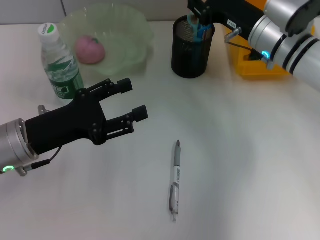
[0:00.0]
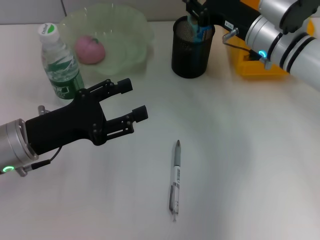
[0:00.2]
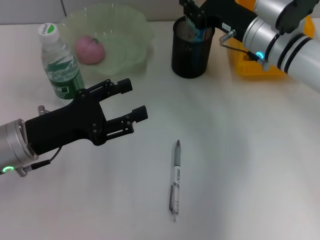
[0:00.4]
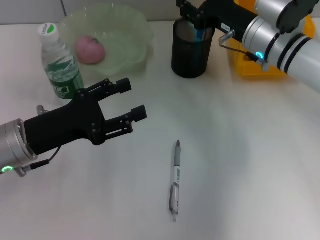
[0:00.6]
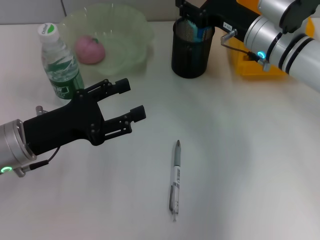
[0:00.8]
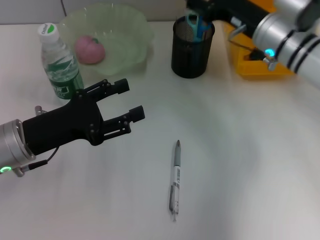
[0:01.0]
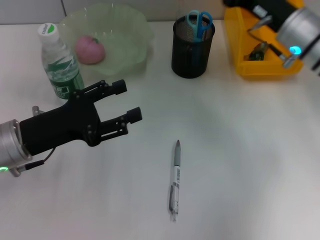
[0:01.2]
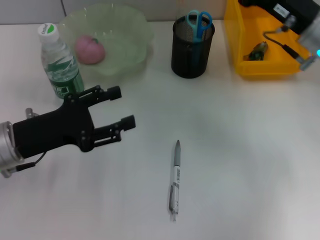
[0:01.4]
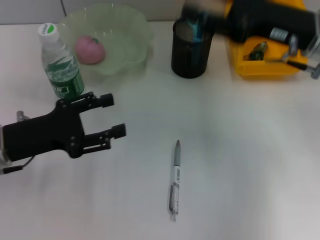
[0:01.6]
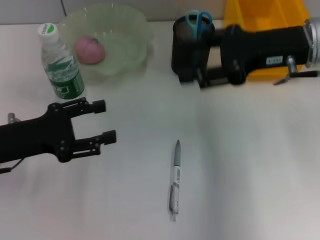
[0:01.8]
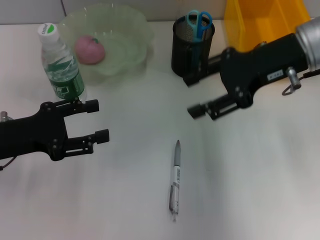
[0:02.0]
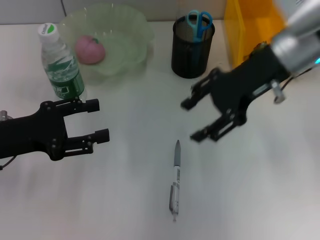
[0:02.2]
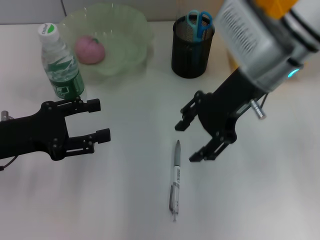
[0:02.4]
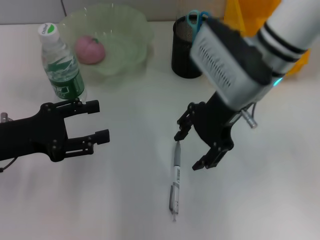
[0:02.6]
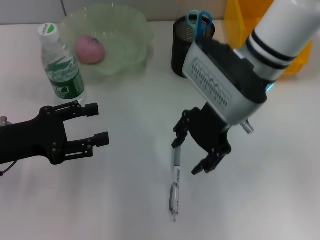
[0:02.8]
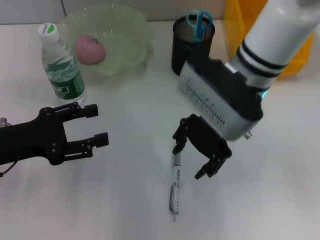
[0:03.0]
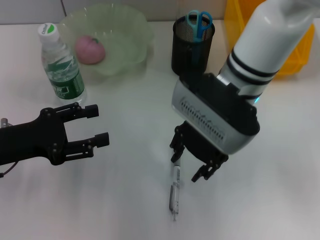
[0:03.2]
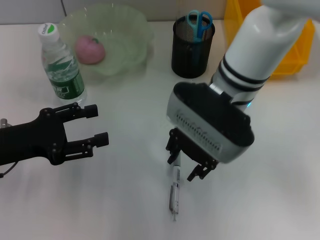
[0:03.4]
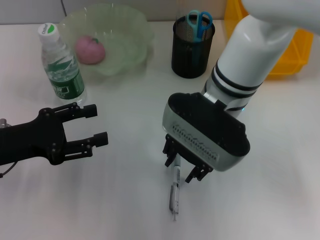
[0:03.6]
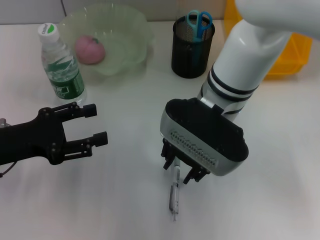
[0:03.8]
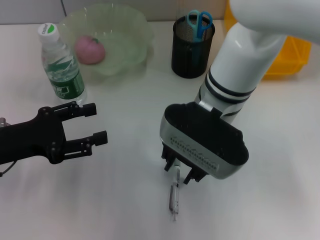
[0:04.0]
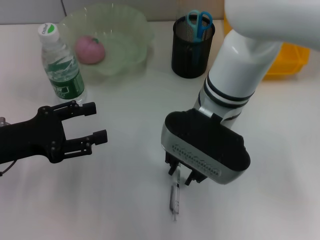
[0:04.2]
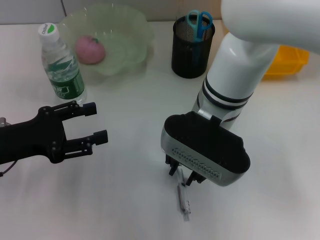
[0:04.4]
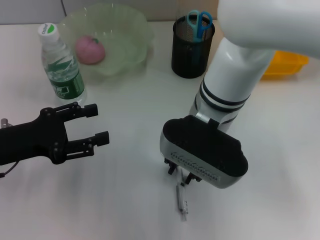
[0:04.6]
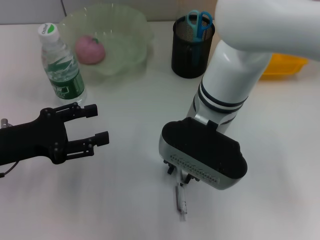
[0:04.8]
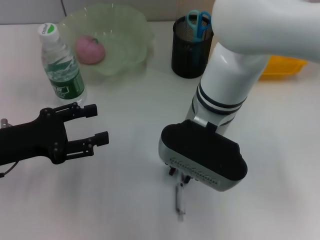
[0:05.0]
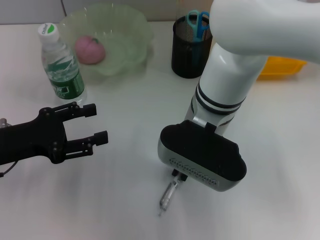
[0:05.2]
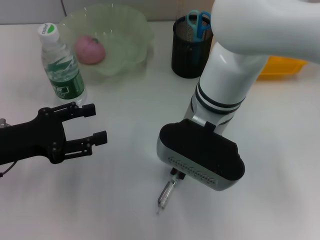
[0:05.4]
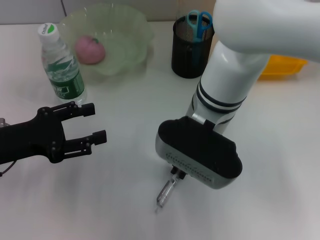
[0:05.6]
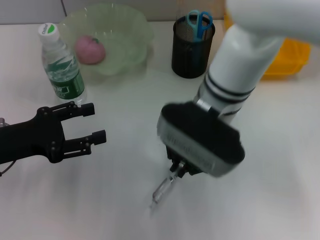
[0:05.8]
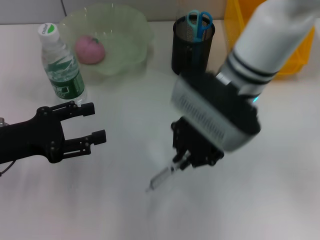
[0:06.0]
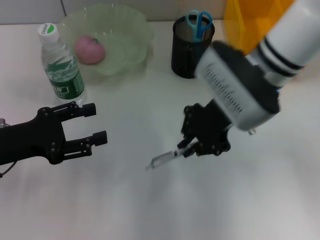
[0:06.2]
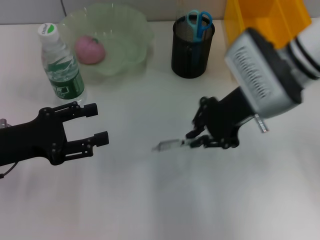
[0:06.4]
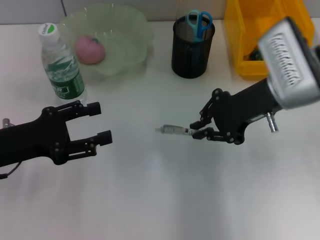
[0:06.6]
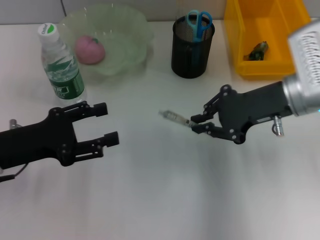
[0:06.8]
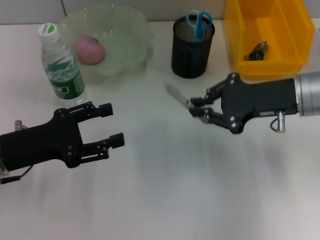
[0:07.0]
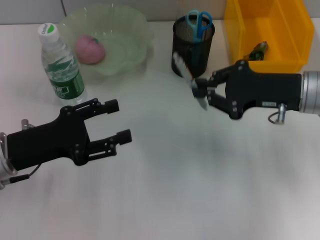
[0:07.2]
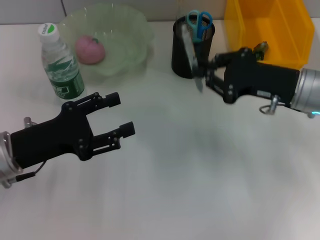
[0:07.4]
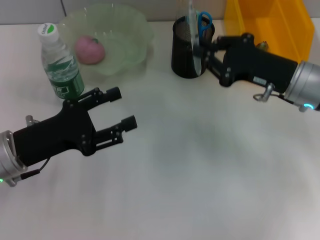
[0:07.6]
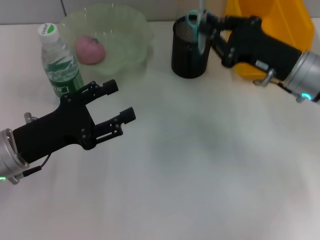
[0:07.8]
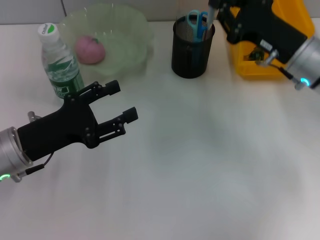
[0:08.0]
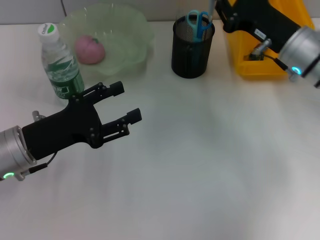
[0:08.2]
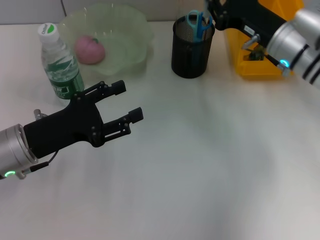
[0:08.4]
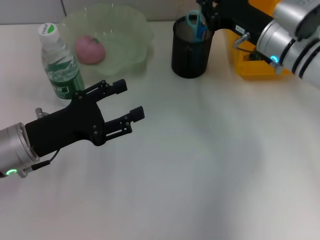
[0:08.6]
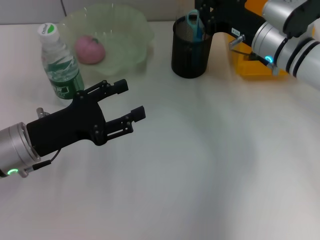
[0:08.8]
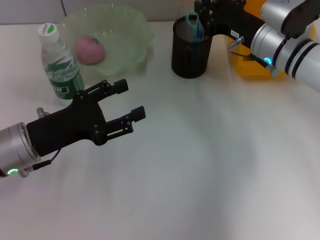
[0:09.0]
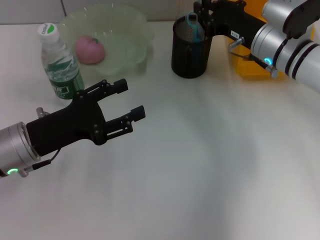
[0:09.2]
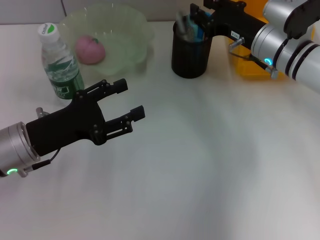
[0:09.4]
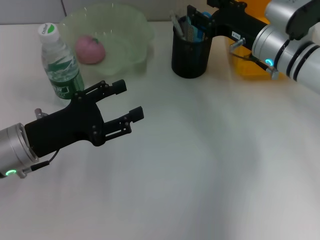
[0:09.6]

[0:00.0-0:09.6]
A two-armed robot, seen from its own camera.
Step, 0:00.2 to 0:05.6: Grab the gray spring-action pen with the right hand.
Step, 0:05.8 to 0:09.4: Place the gray spring-action pen into the pen holder with the right hand.
0:00.0 to 0:01.6: The right gripper travels upward and backward by approximately 10 cm.
0:01.6 to 0:03.2: The right gripper goes roughly 15 cm to the left.
0:03.2 to 0:04.8: The grippers stay close to where they were, moving slightly.
0:04.8 to 0:06.4: The right gripper heads to the right, covering about 10 cm.
0:06.4 to 0:08.0: The left gripper changes place by some 5 cm; the right gripper is displaced to the right by approximately 5 cm.
0:08.0 to 0:09.6: The right gripper ends up approximately 5 cm from where it was.

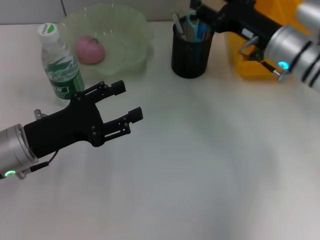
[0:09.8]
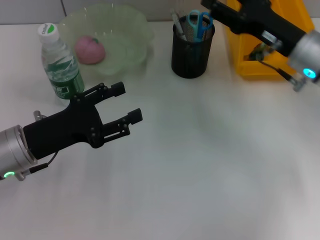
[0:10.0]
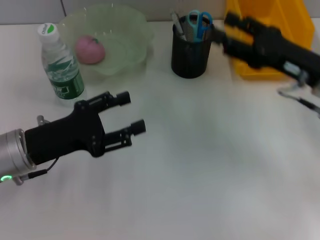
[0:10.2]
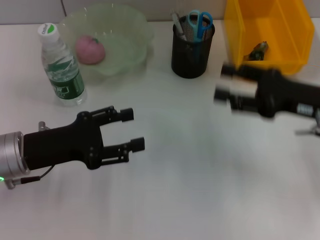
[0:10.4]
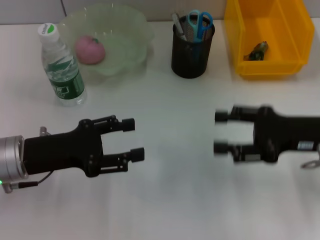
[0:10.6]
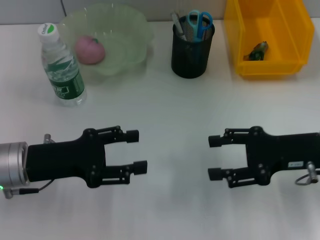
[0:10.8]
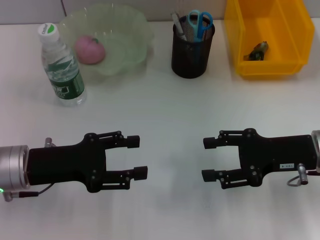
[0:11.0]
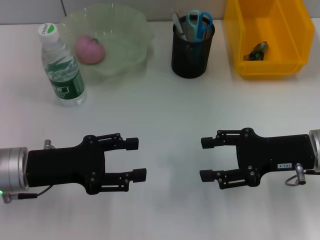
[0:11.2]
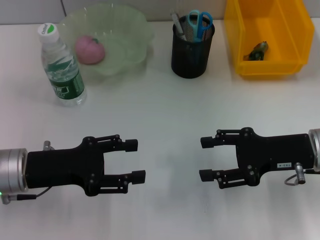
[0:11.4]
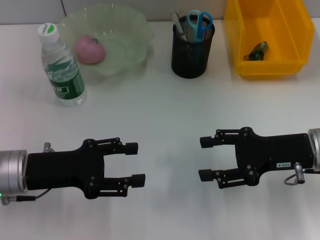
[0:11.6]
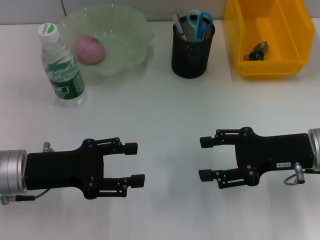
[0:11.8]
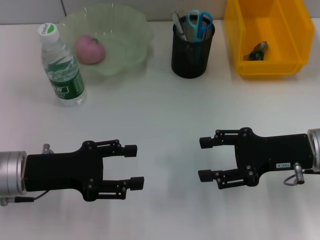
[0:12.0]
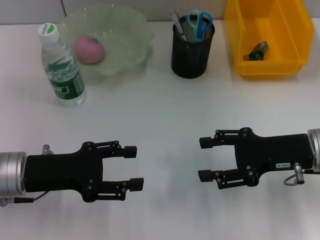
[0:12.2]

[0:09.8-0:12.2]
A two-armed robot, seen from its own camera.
0:09.8 to 0:11.0: The right gripper shifts some 10 cm backward.
0:11.0 to 0:12.2: Neither gripper changes place.
